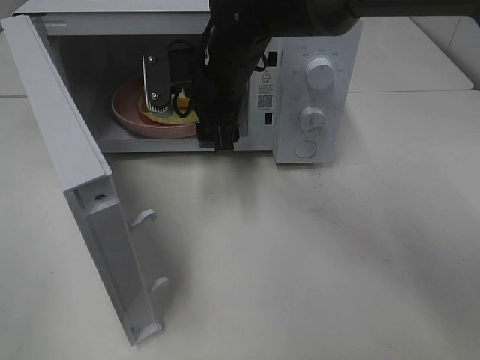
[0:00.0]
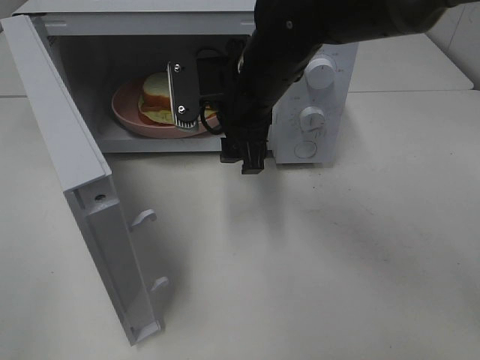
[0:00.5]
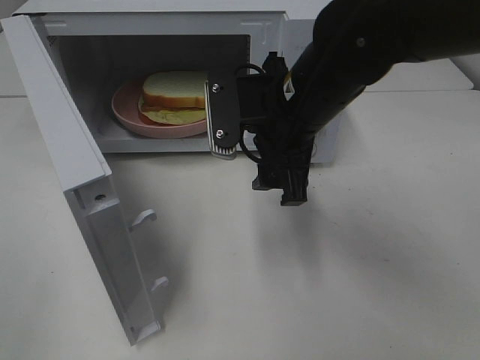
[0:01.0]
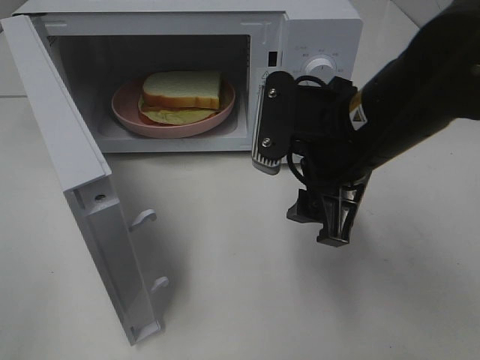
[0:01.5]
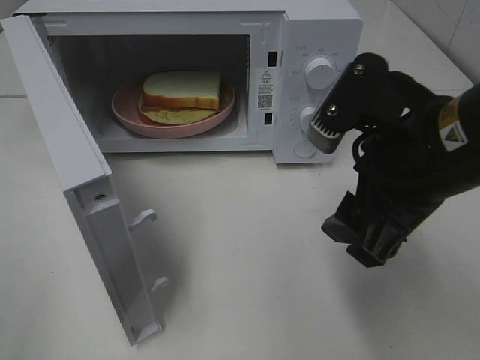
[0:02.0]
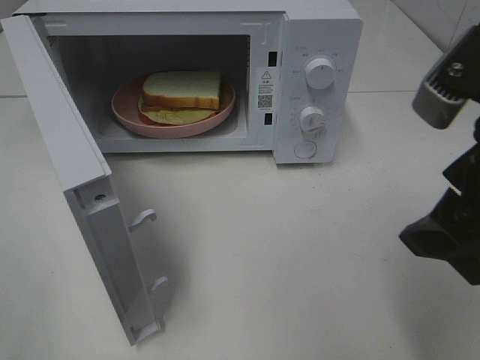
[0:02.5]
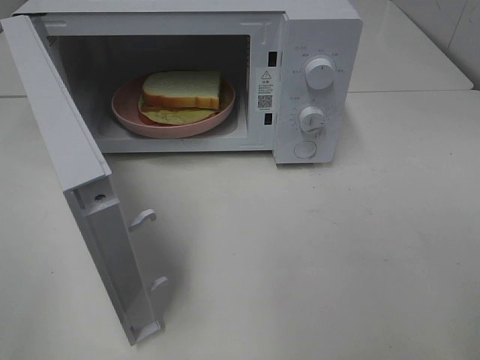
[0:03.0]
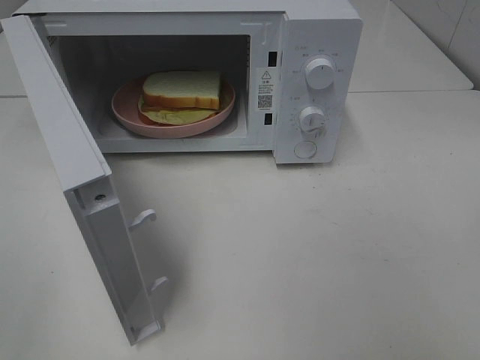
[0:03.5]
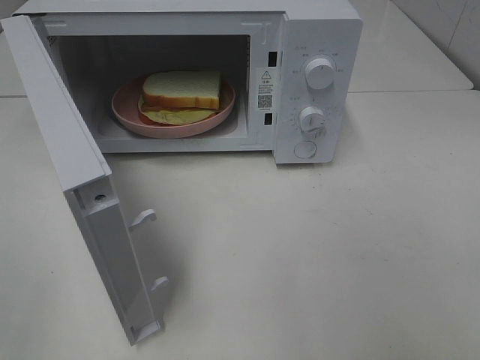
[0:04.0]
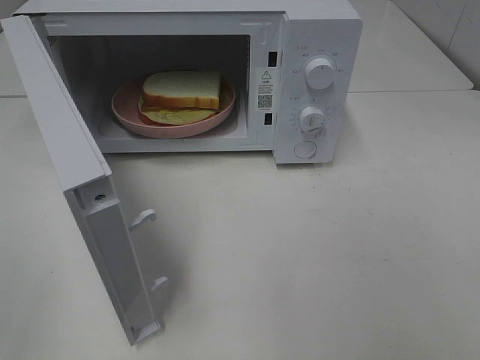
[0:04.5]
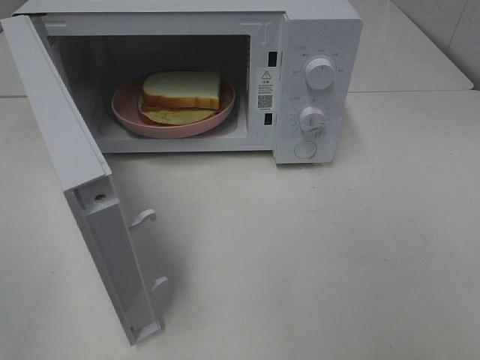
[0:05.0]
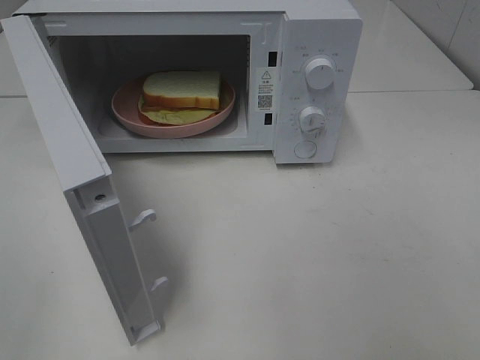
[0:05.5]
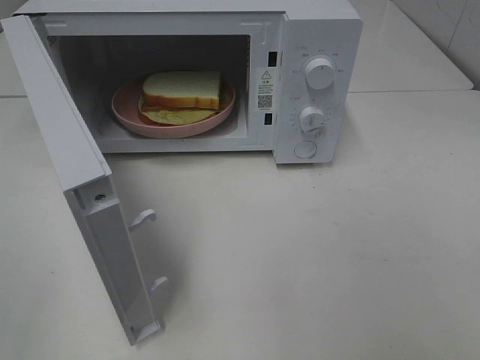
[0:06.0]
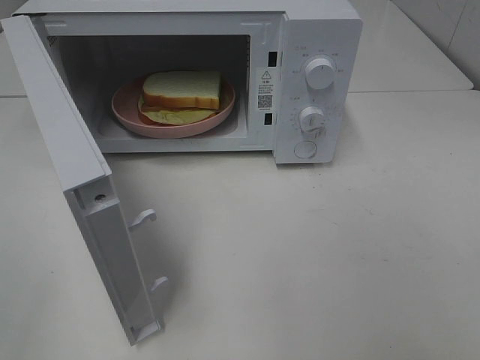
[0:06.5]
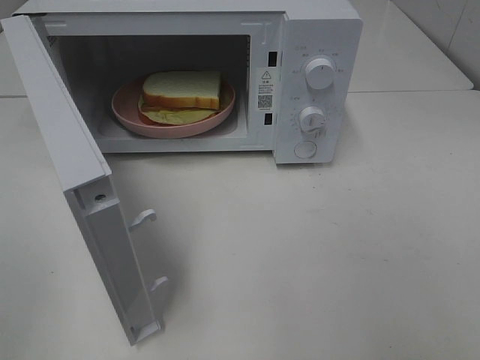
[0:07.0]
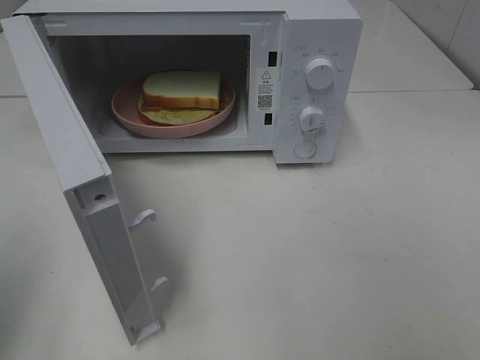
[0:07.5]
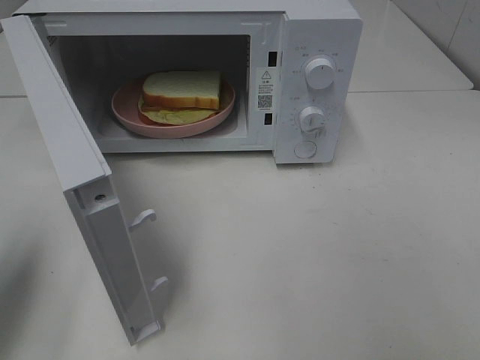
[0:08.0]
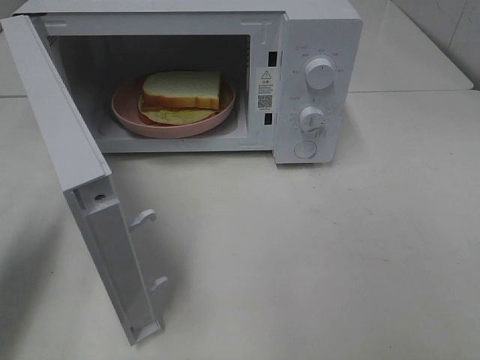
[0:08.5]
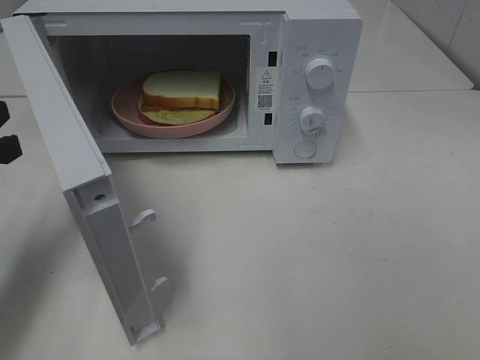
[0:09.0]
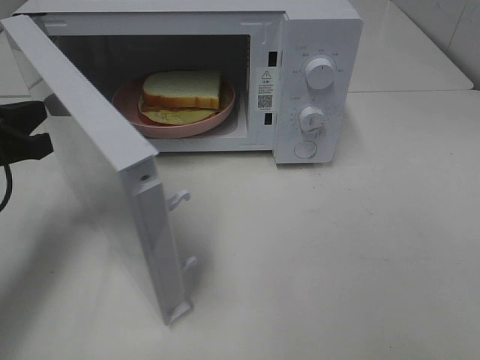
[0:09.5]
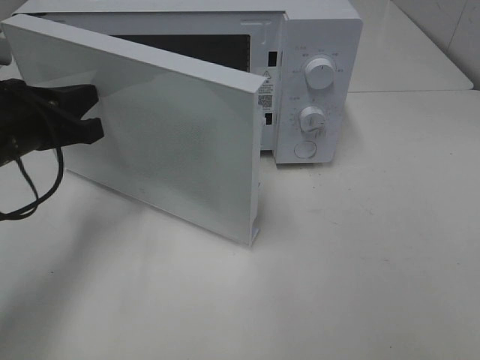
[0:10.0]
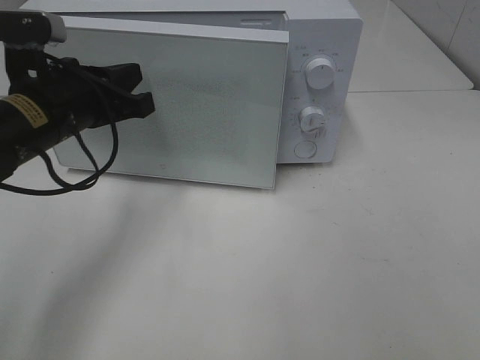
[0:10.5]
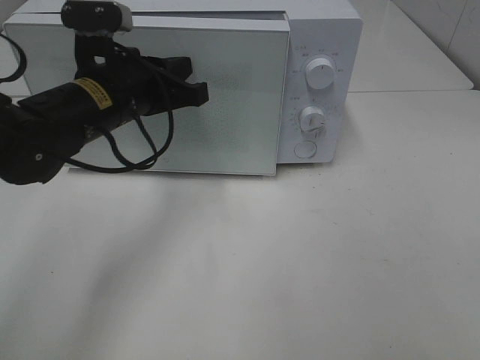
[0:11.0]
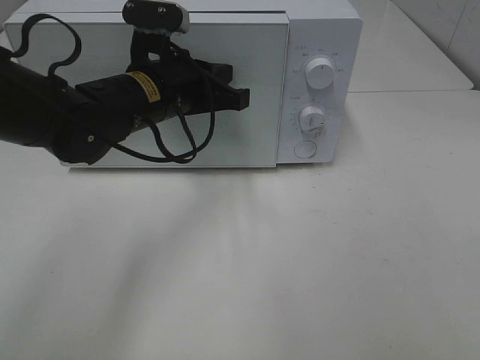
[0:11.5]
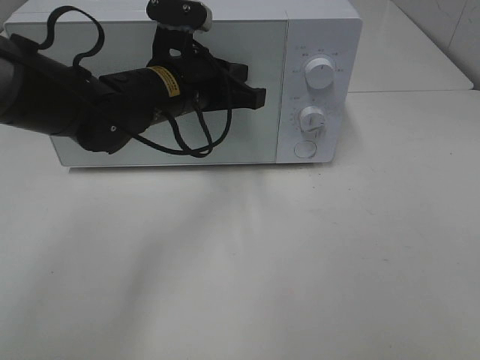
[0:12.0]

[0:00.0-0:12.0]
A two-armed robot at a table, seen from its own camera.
Task of the whole recording: Heat Sandwich.
0:00.0 to 0:02.0: The right gripper moves backward and to the right, approximately 25 cm.
0:02.0 to 0:04.0: The right gripper moves backward and to the right, about 20 cm.
0:06.0 to 0:08.0: The left gripper moves forward, roughly 15 cm, and closes.
0:08.0 to 0:10.0: The left gripper moves forward, to the right and downward, about 15 cm.
0:10.0 to 0:12.0: The left gripper shifts roughly 15 cm to the right and forward.

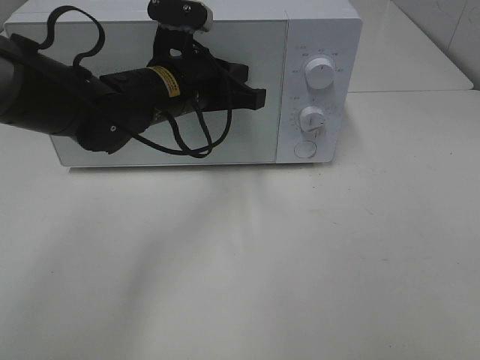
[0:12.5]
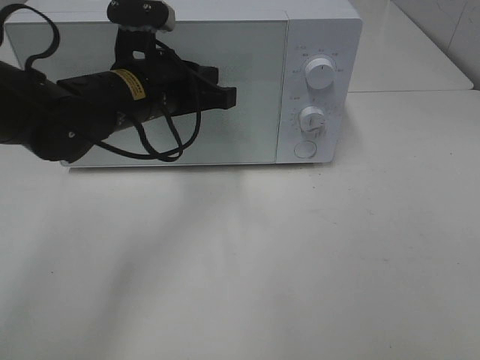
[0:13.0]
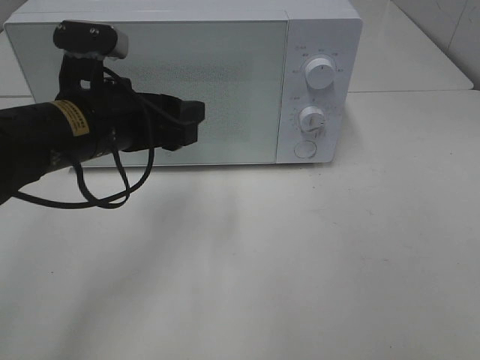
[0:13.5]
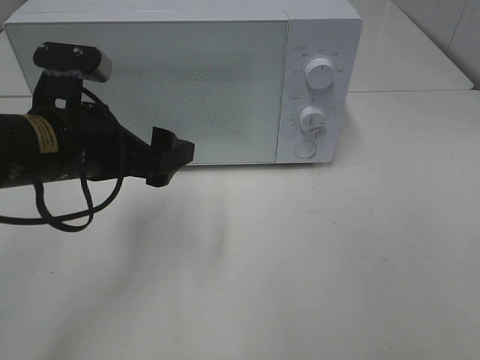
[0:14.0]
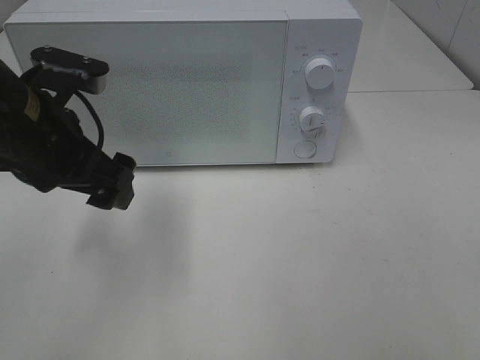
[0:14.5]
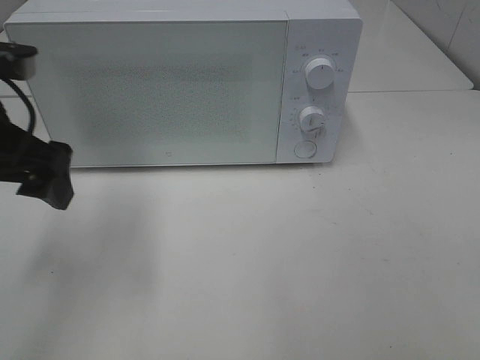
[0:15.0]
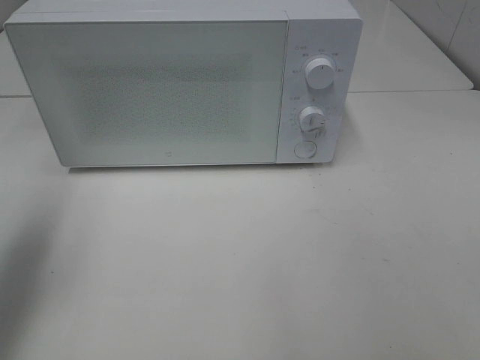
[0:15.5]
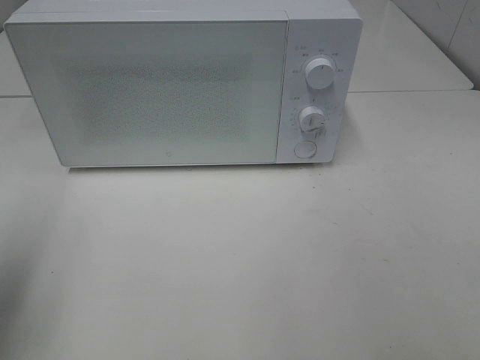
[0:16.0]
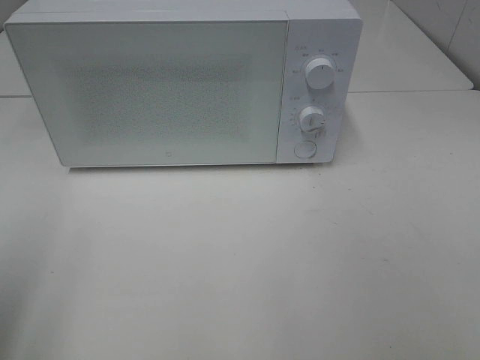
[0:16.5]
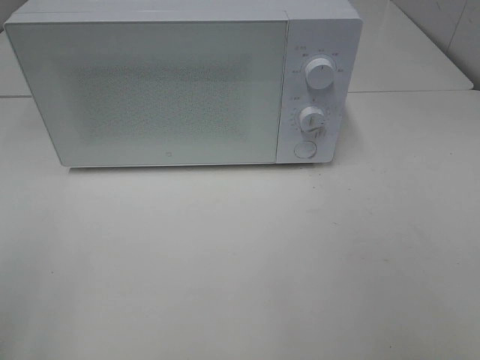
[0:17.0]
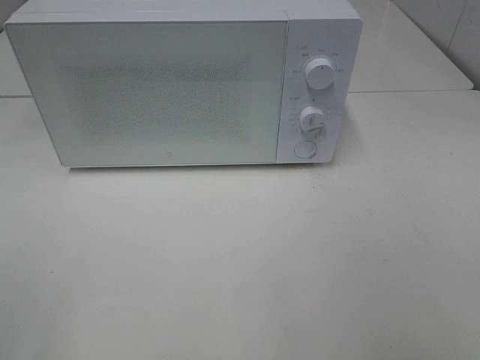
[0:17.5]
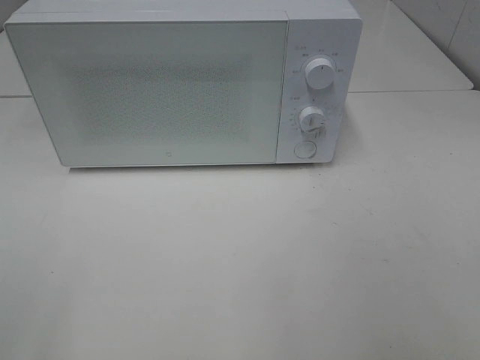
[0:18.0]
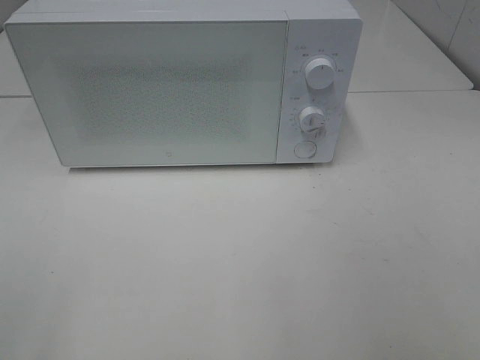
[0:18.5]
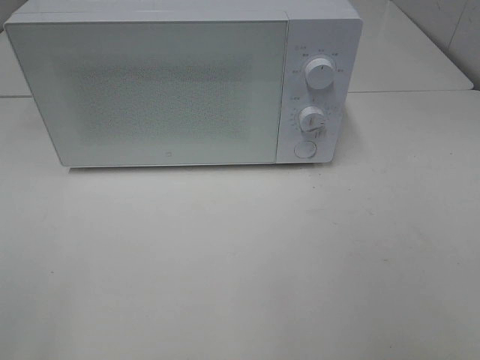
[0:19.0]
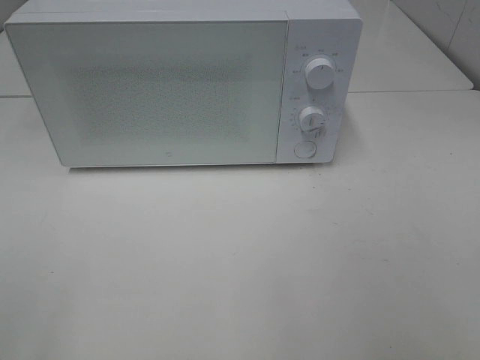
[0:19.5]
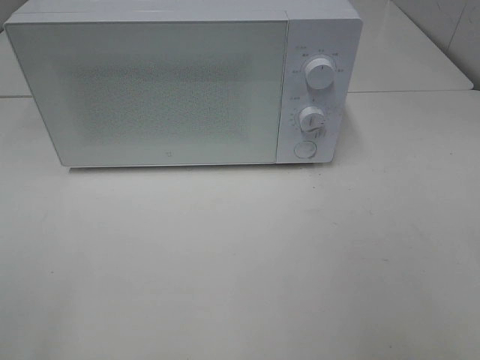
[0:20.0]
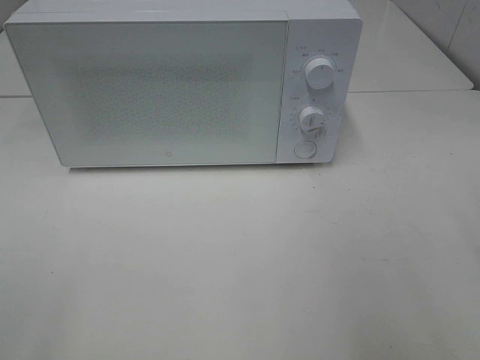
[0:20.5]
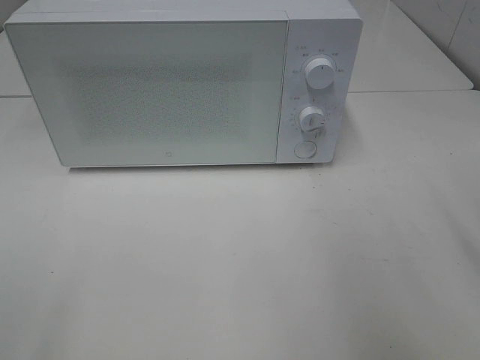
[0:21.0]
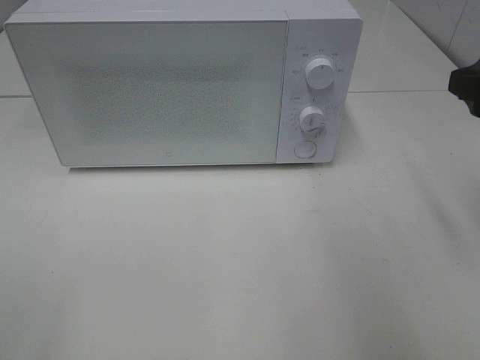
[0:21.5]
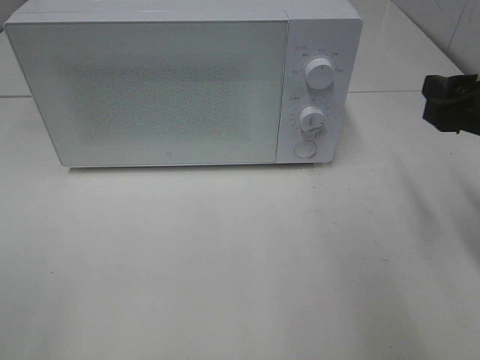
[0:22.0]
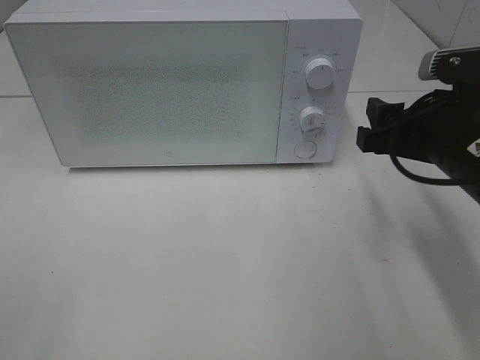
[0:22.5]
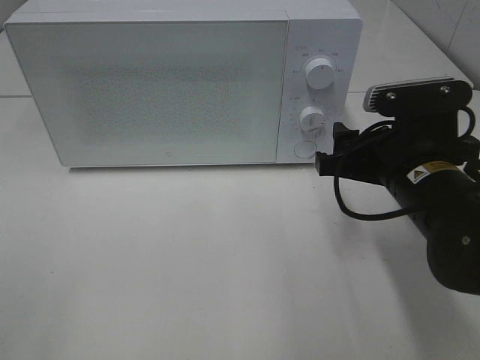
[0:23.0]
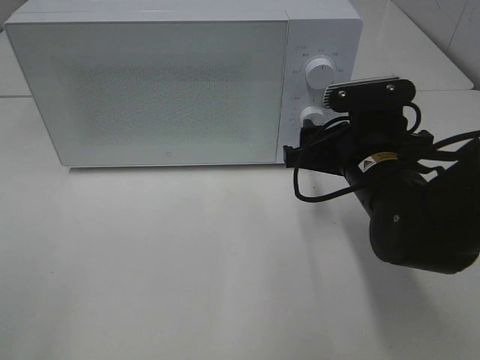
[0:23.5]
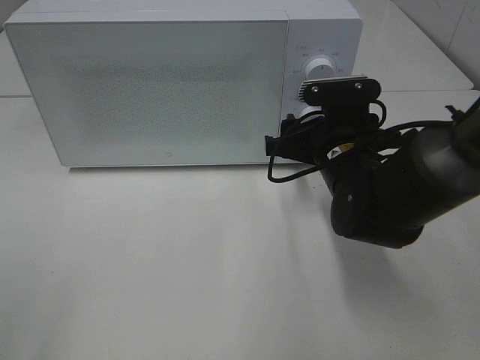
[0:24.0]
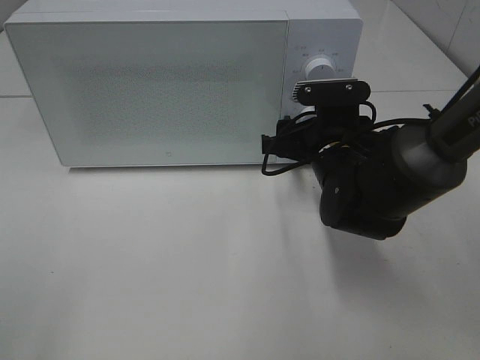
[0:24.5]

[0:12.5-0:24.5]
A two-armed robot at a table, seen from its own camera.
Task of the whole recording: Heat Sandwich.
0:12.5 to 0:14.5: The left gripper travels to the left and backward by roughly 15 cm, and opens.
0:14.5 to 0:16.5: The left gripper moves backward and to the left, about 20 cm.
0:20.5 to 0:22.5: The right gripper shifts about 20 cm forward, downward and to the left.
0:22.5 to 0:24.5: The right gripper moves forward, to the left and downward, some 15 cm.

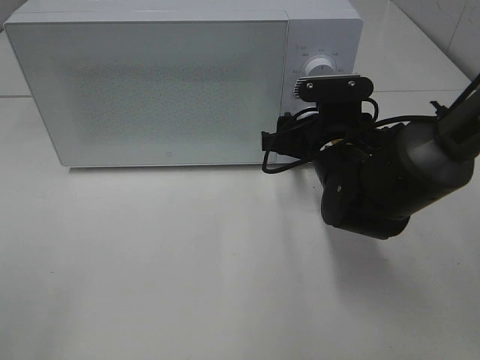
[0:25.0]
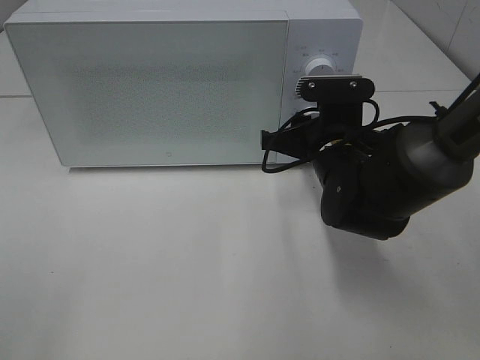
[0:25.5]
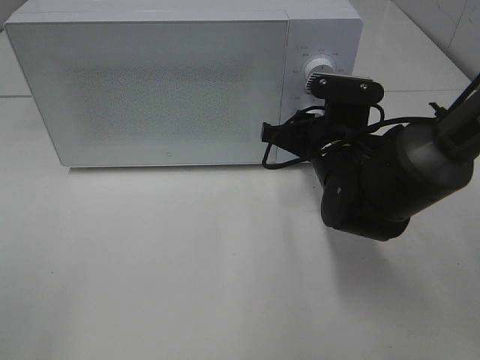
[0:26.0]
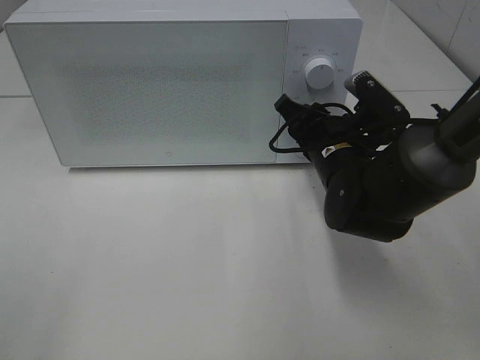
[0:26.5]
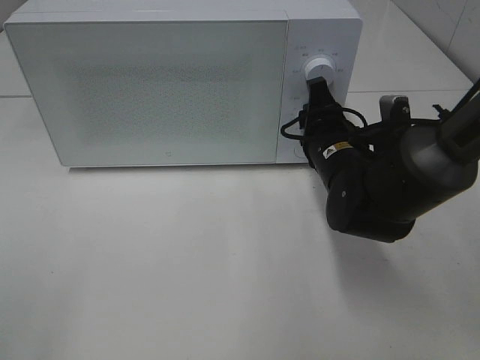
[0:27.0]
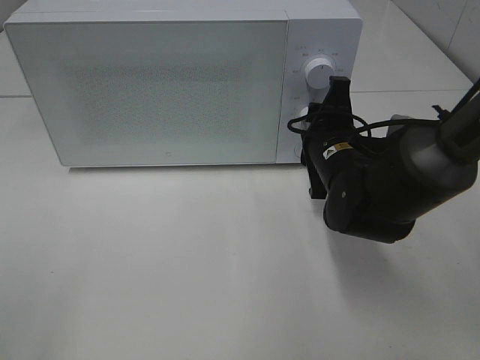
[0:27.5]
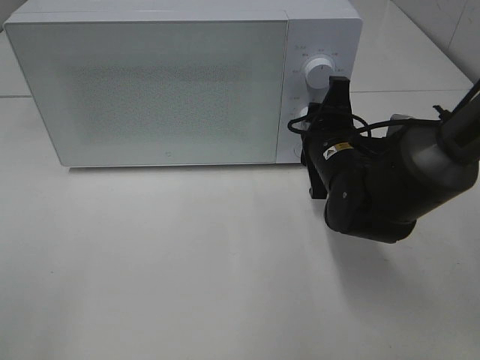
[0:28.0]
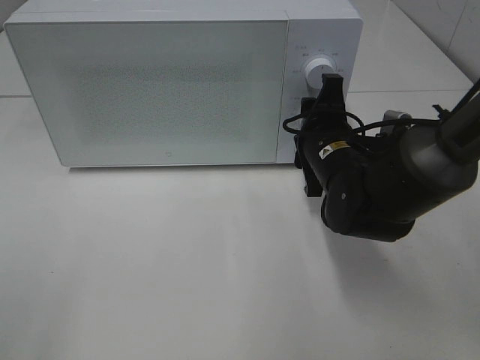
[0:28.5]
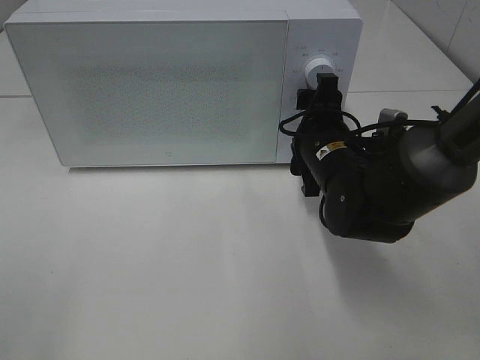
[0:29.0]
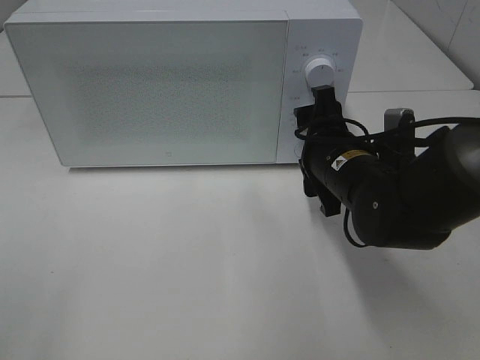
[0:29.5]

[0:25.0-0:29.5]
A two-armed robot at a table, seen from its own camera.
Task of the whole recording: Heat Sandwich.
0:25.0 to 0:27.0: The right gripper closes its fingers.
0:27.0 to 0:29.5: The right gripper opens up.
